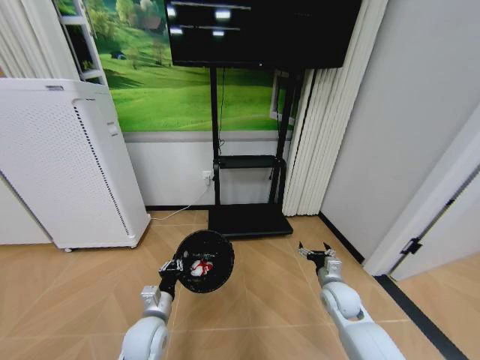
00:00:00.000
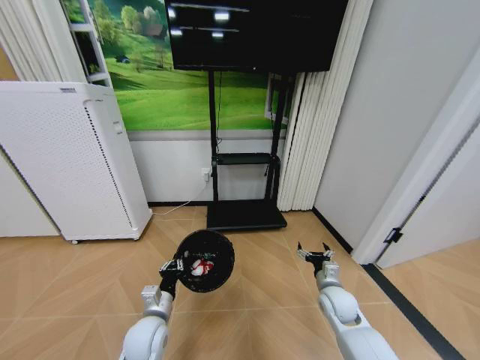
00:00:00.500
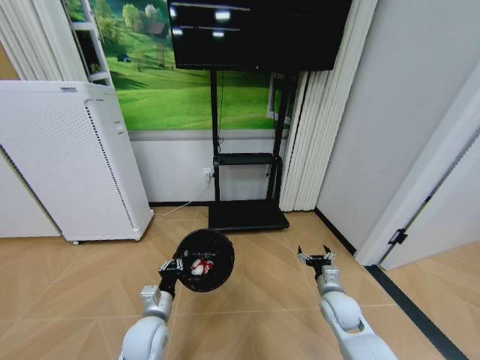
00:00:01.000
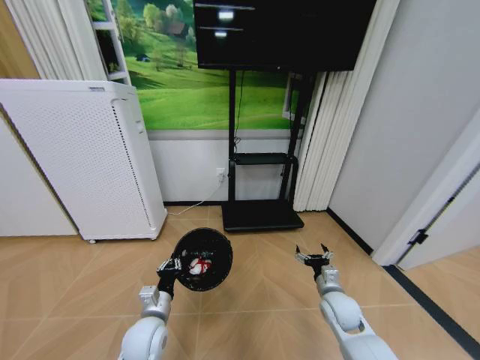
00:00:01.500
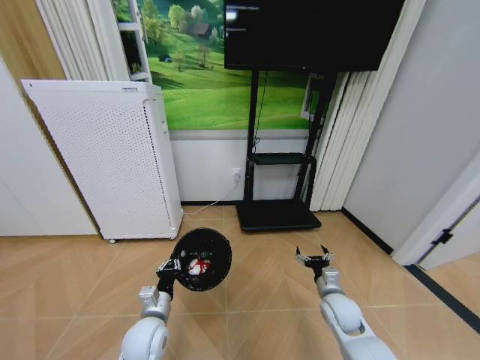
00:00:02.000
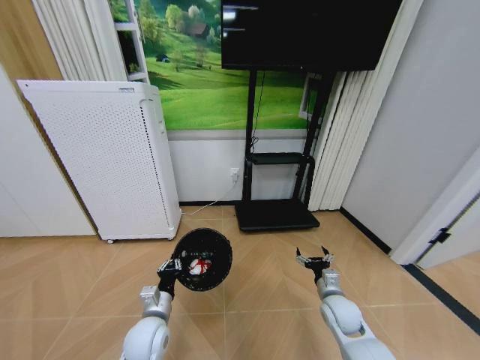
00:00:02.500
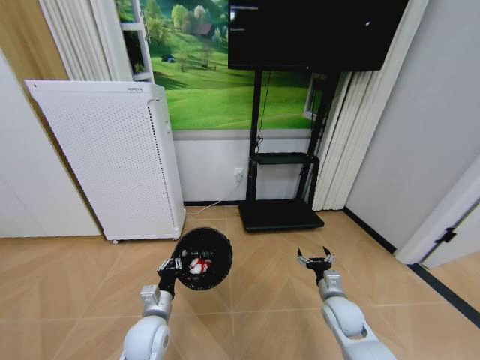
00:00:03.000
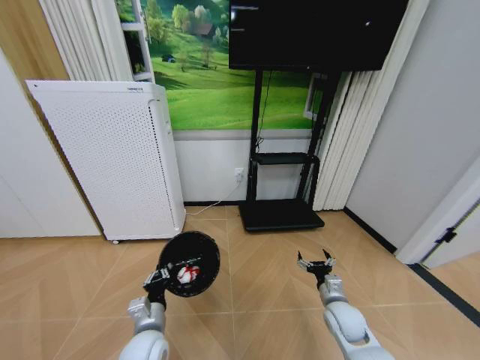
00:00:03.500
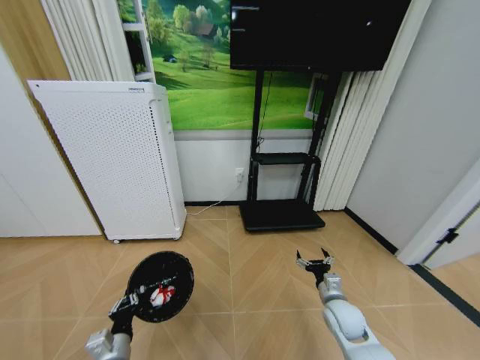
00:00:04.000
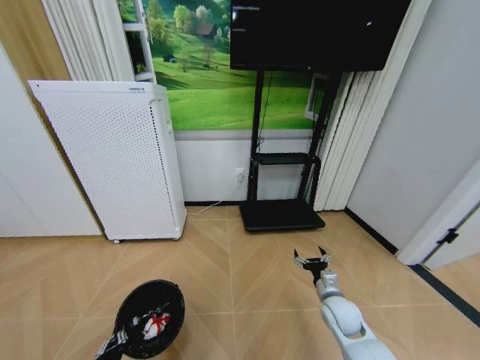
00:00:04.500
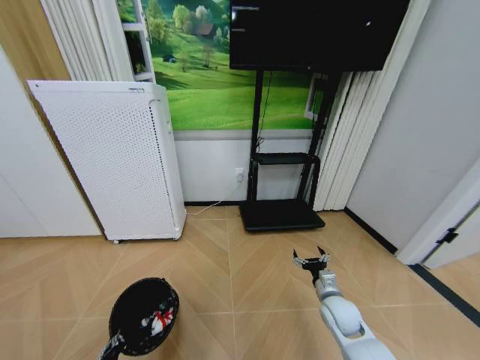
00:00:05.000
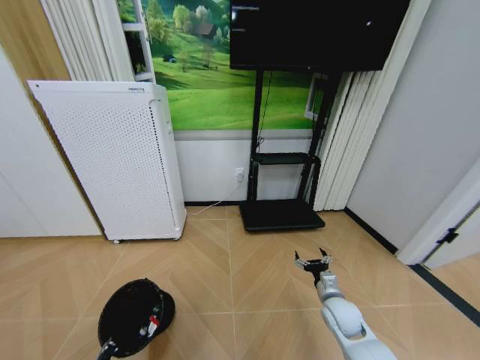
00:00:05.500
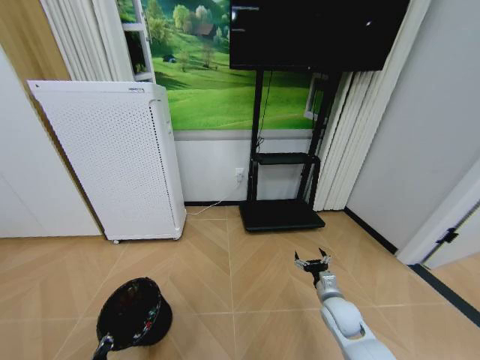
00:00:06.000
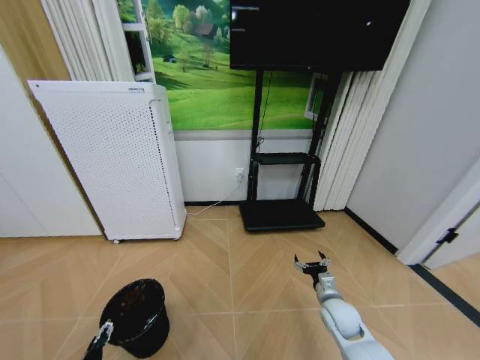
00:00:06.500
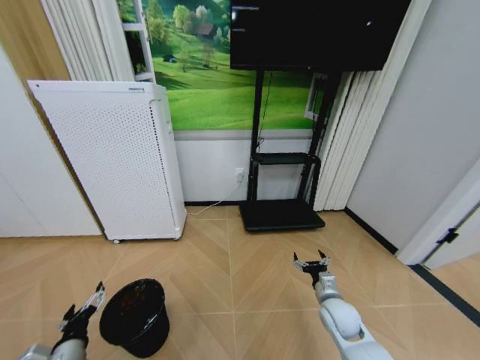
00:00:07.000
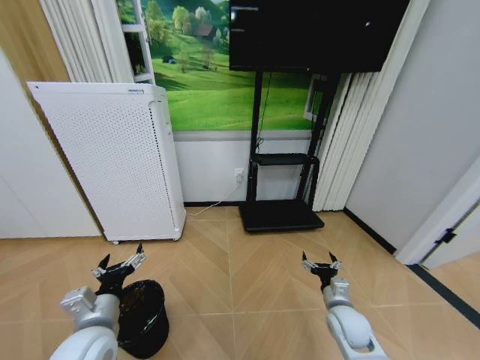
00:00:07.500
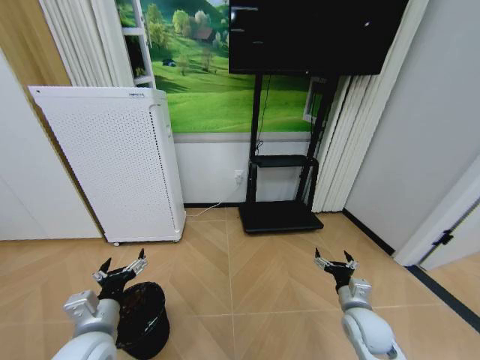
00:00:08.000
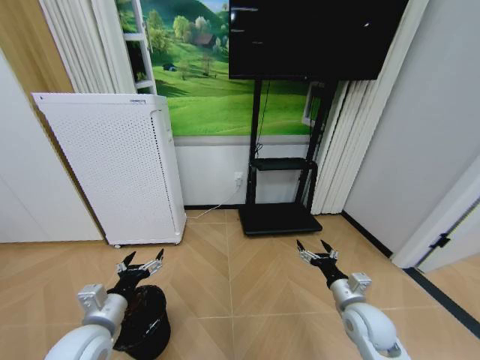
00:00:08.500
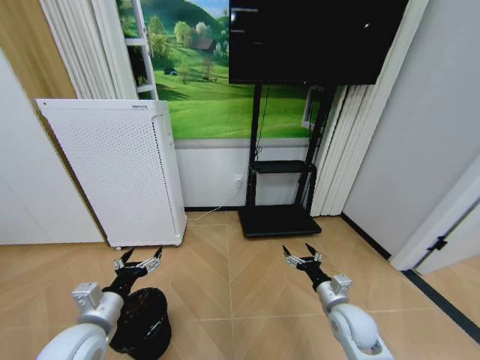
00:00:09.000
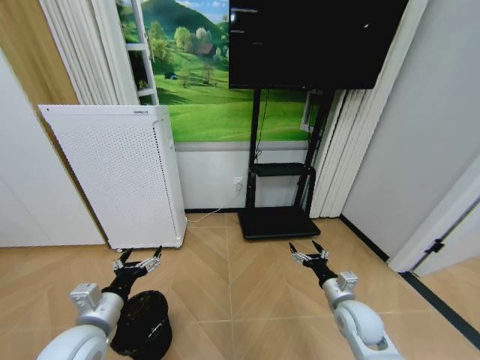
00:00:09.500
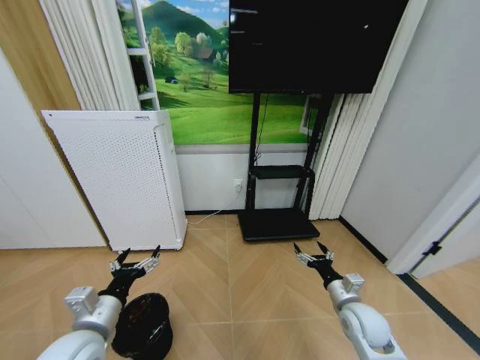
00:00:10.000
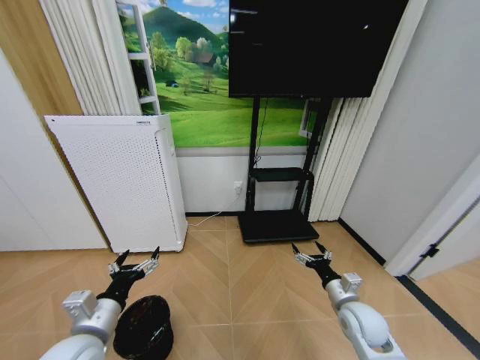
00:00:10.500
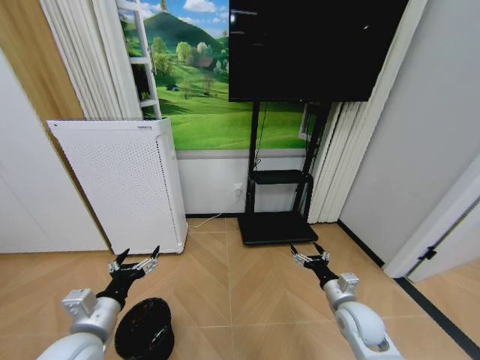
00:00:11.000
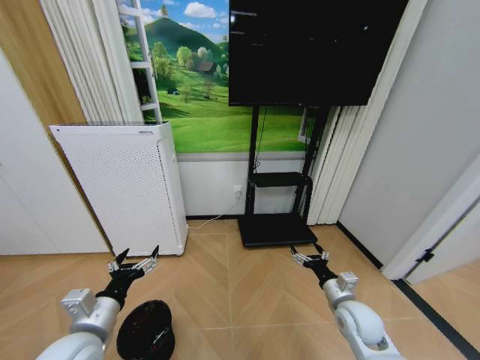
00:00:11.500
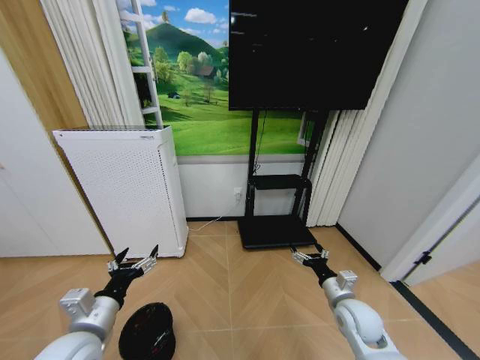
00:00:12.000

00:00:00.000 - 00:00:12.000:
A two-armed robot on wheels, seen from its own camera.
Task of the whole recording: Pick up the trash bin and place the garbage on the floor into it.
00:00:02.000 - 00:00:04.000: The left gripper is displaced backward by some 5 cm.
00:00:04.000 - 00:00:06.000: The left gripper shifts some 15 cm downward, to the left and backward.
00:00:06.000 - 00:00:08.000: The right gripper changes place by some 5 cm. The left gripper goes roughly 20 cm upward, and opens its fingers.
00:00:10.000 - 00:00:12.000: Both grippers stay about where they are.

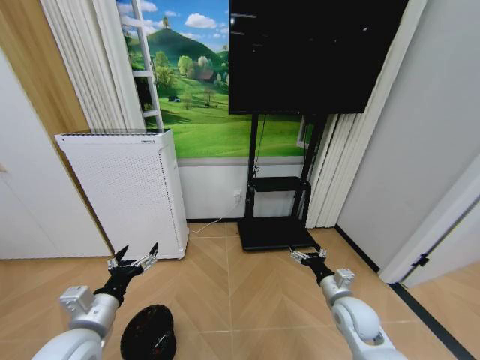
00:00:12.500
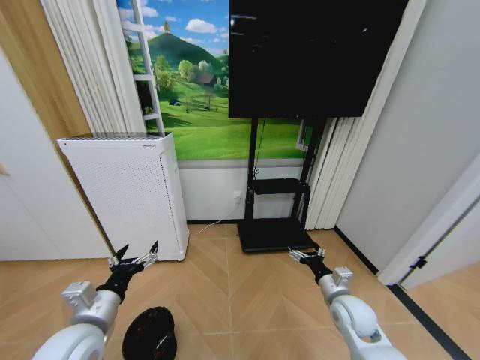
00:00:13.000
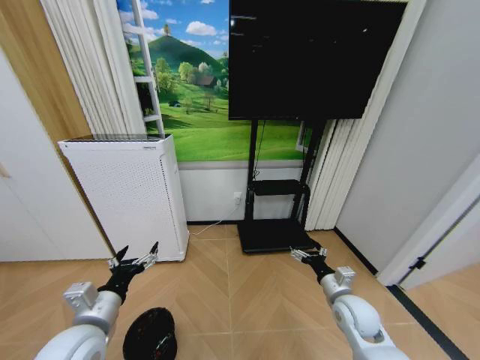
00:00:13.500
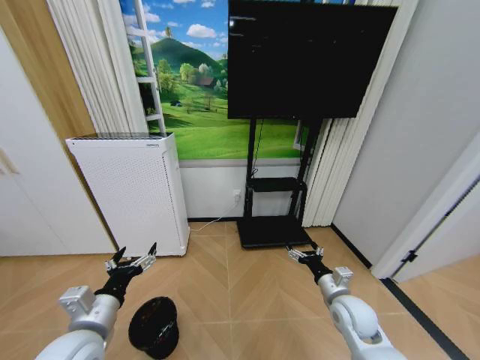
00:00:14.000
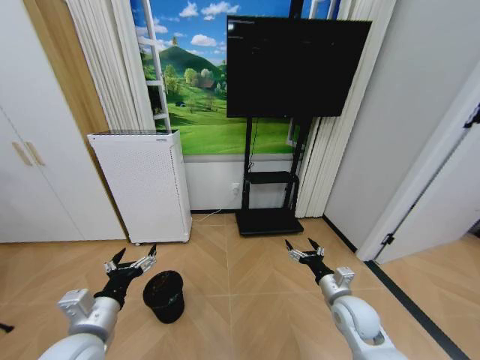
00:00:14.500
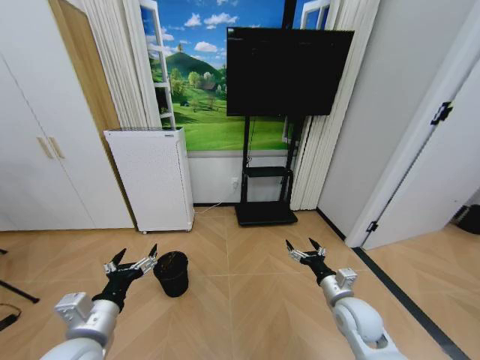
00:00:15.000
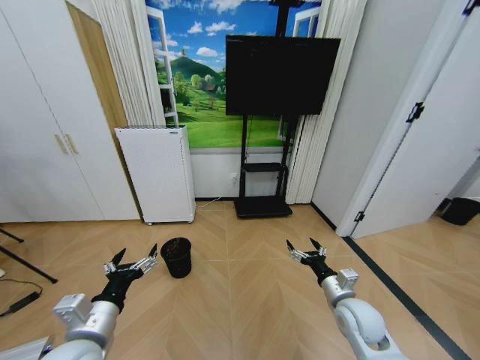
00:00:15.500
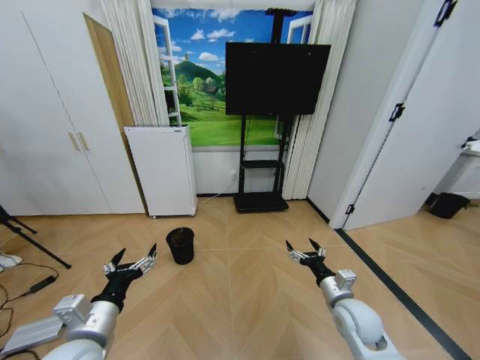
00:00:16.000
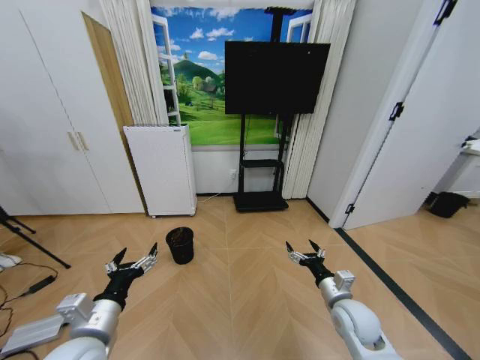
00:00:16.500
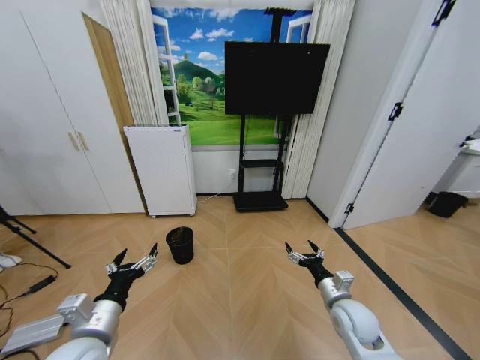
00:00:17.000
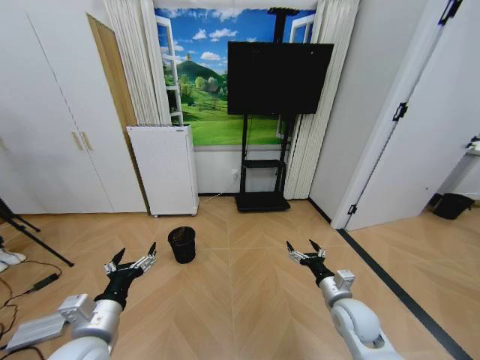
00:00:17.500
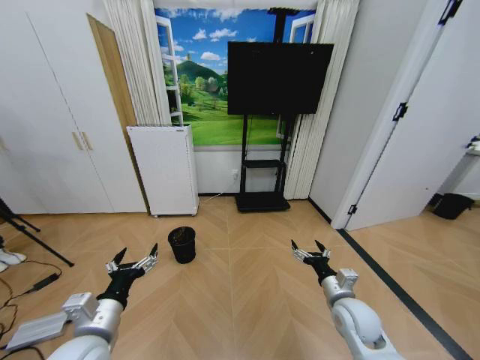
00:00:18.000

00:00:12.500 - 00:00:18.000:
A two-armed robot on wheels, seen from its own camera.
Task of the whole recording: Pick up the trash bin and place the garbage on the floor into it.
00:00:16.000 - 00:00:18.000: The grippers move only a little.
